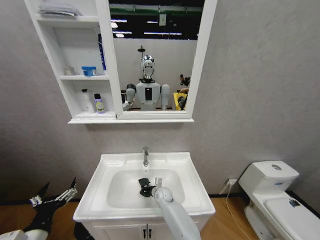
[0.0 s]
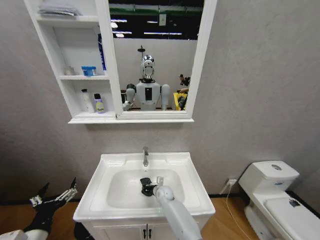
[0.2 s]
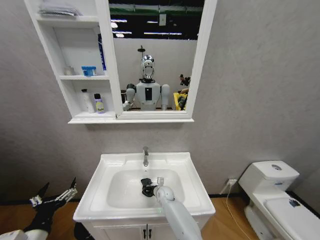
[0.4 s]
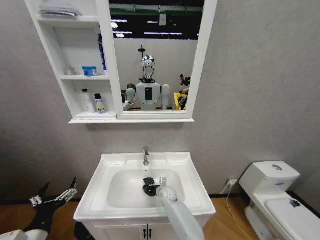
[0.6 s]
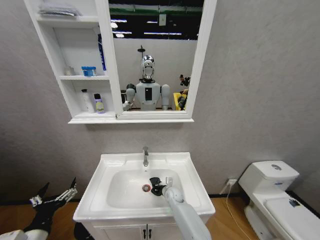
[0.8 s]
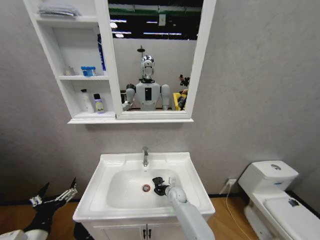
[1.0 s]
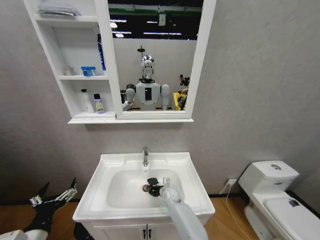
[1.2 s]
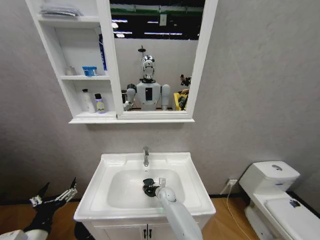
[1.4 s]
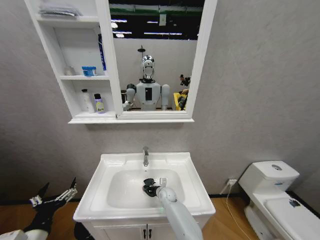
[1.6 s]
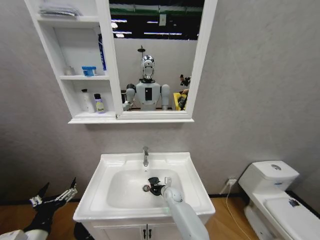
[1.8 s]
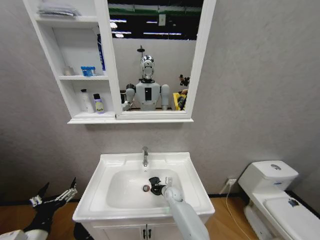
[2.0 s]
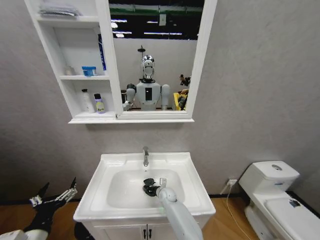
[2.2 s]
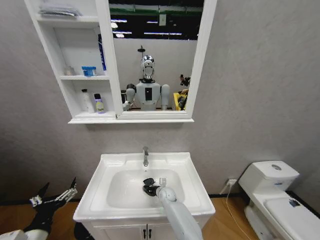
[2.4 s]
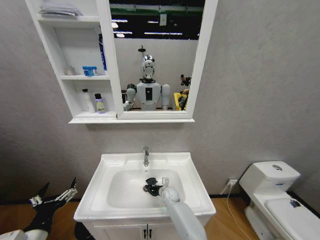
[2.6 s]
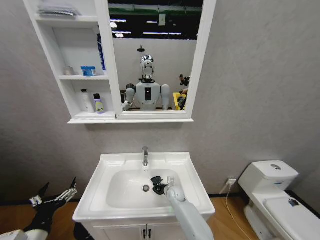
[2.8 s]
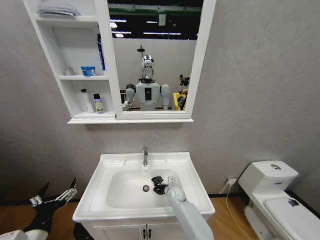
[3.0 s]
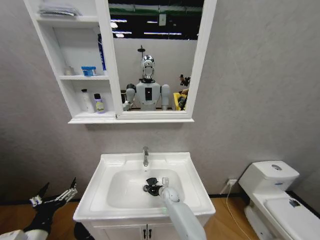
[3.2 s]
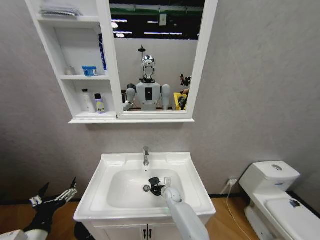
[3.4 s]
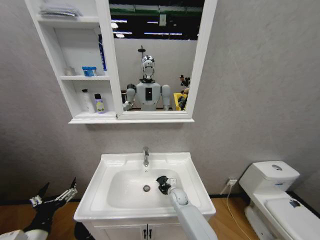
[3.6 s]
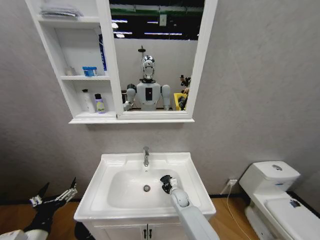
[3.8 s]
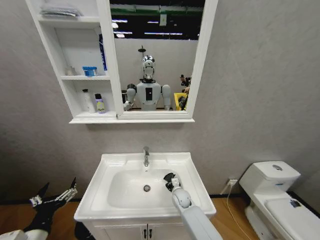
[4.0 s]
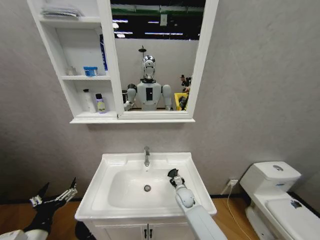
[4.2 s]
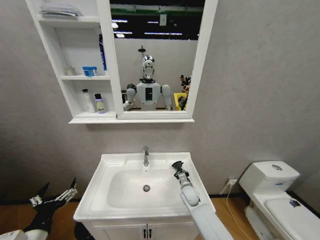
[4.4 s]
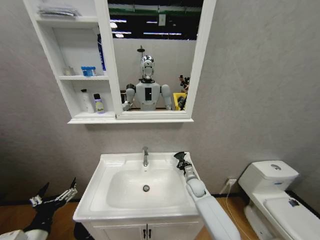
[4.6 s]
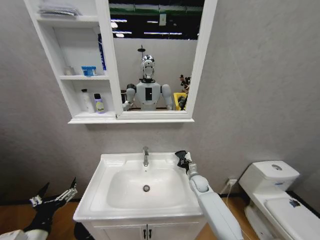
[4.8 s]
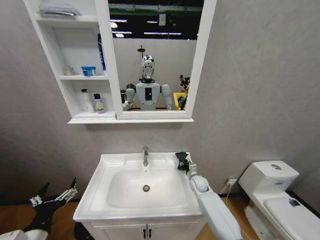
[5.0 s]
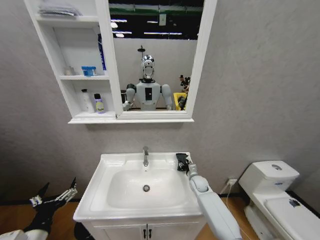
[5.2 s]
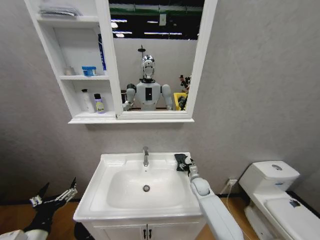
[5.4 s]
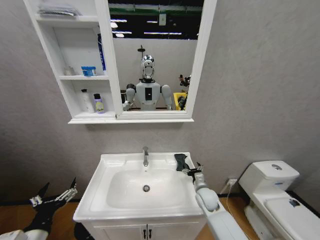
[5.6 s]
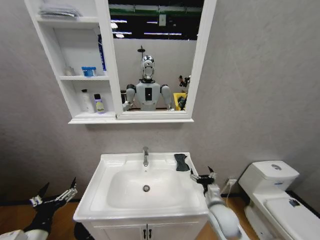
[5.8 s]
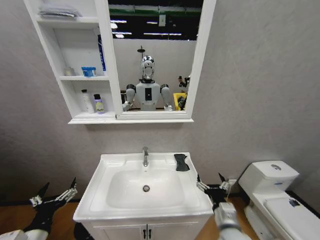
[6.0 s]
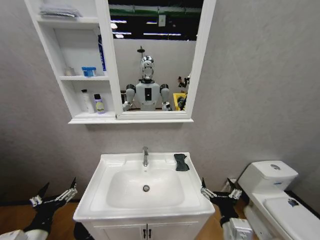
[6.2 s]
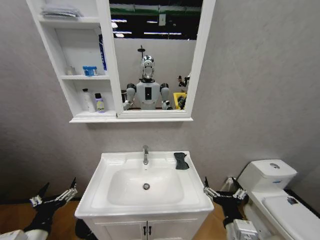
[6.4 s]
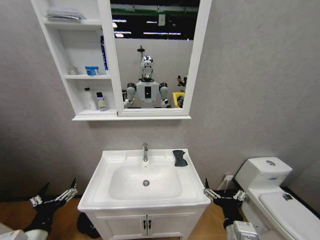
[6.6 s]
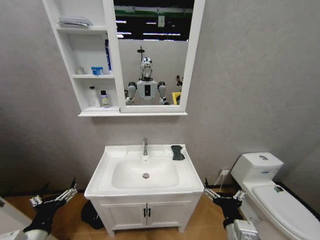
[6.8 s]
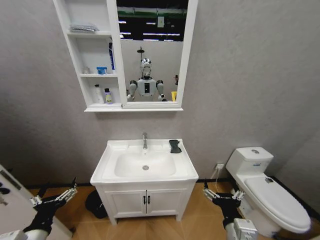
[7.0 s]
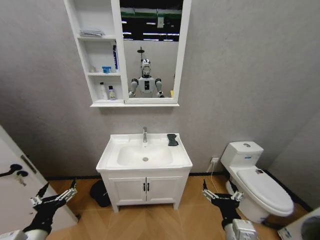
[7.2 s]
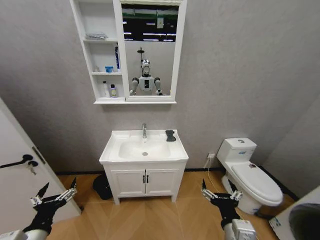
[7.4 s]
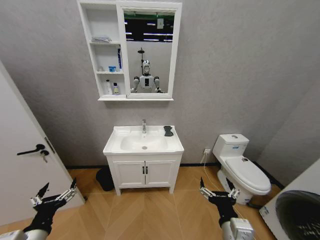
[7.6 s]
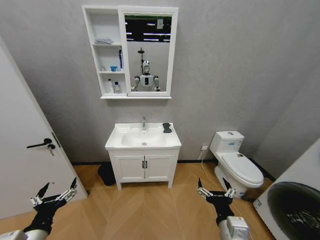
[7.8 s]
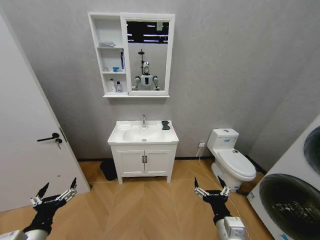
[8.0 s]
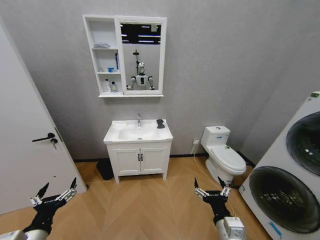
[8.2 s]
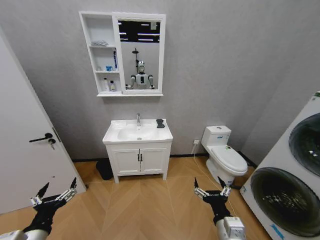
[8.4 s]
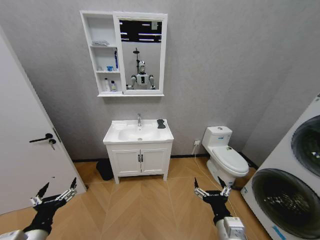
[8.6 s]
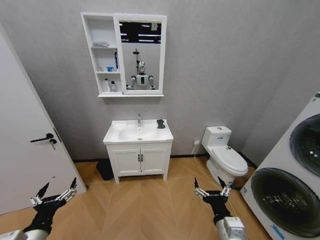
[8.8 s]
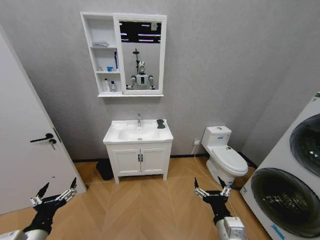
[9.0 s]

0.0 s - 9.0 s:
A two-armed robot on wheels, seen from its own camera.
Task of the whole recording: Move facial cleanser and shampoo from washbasin to cabinet, then wipe washbasin with towel.
0.0 s - 1.6 s: The right gripper goes to the right and returns, approximately 10 cm each way.
1.6 s - 3.0 s: The grippers move only a little.
3.0 s - 4.4 s: The right gripper goes roughly 10 cm to the right and upward.
4.4 s - 6.0 s: The right gripper moves backward and upward, approximately 25 cm, and opens up.
6.0 s - 7.6 s: The right gripper moves backward and upward, approximately 10 cm.
